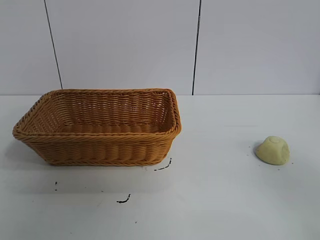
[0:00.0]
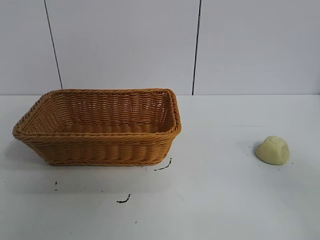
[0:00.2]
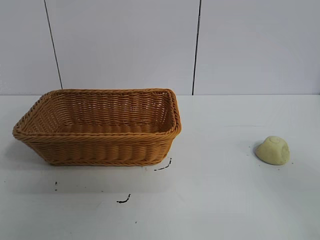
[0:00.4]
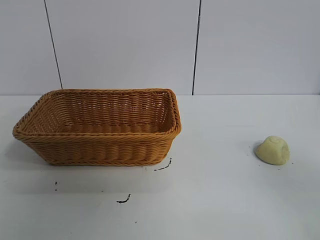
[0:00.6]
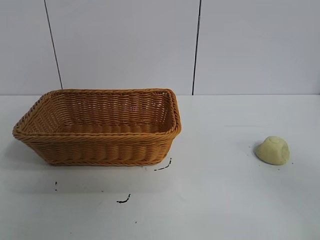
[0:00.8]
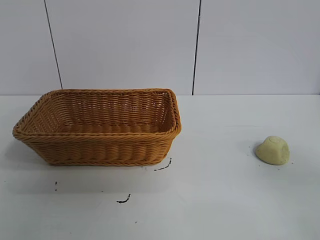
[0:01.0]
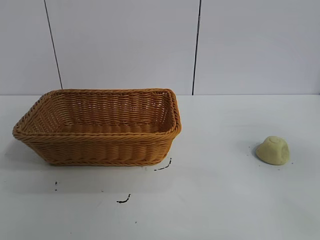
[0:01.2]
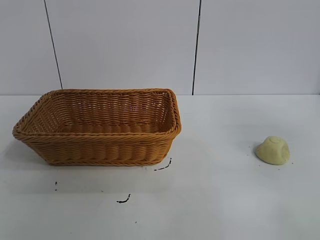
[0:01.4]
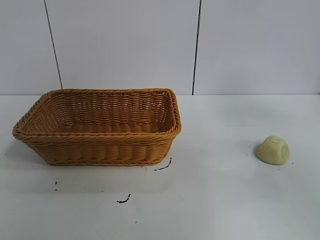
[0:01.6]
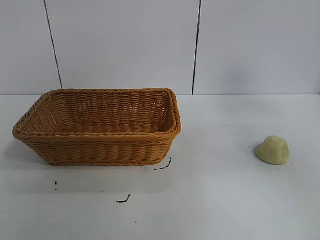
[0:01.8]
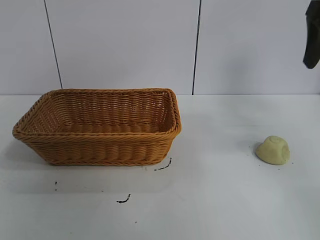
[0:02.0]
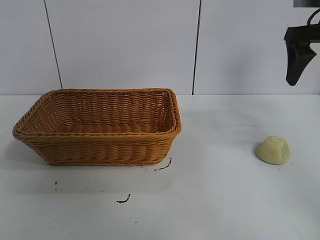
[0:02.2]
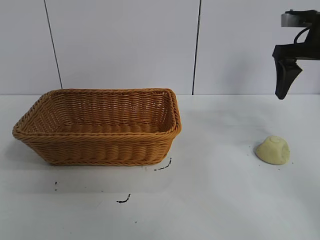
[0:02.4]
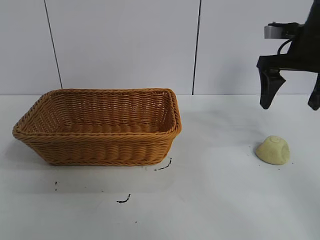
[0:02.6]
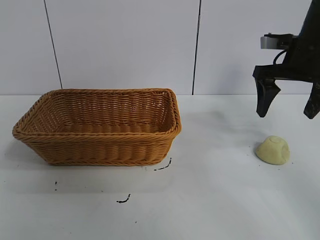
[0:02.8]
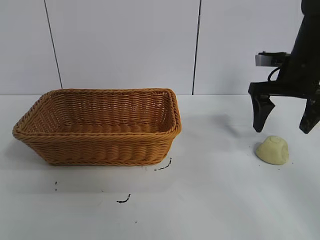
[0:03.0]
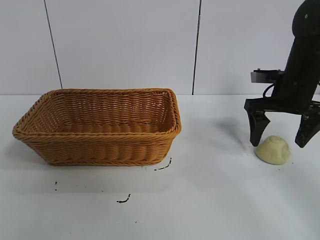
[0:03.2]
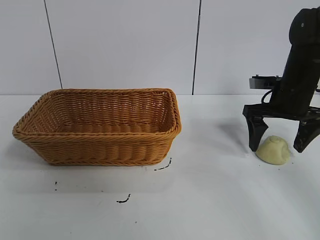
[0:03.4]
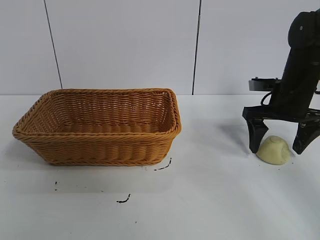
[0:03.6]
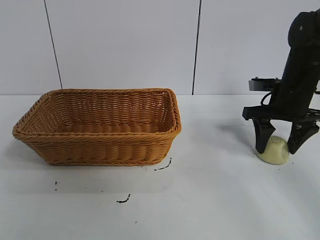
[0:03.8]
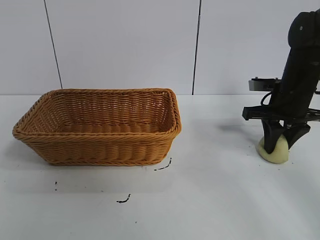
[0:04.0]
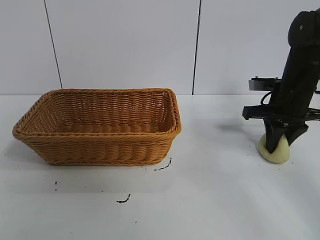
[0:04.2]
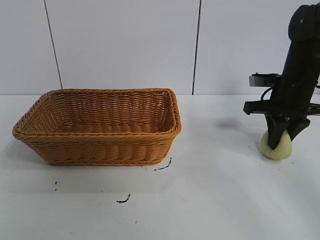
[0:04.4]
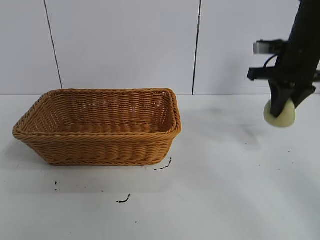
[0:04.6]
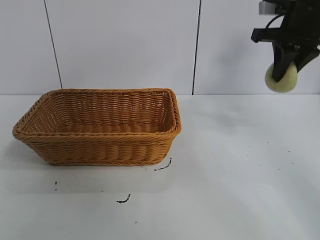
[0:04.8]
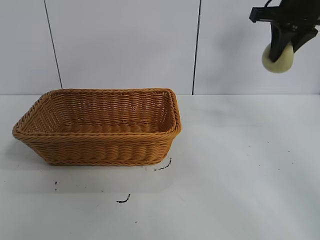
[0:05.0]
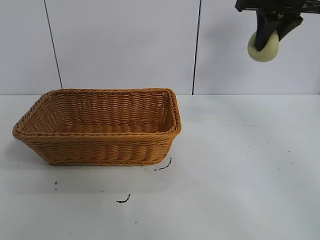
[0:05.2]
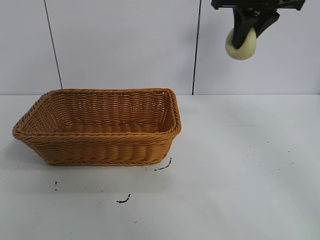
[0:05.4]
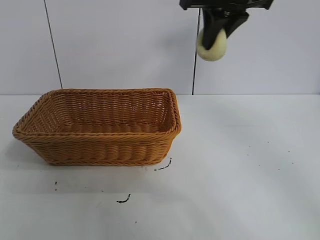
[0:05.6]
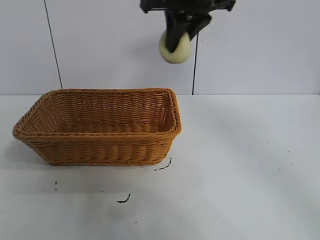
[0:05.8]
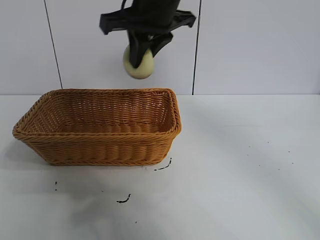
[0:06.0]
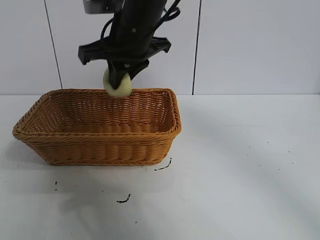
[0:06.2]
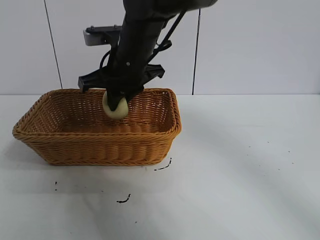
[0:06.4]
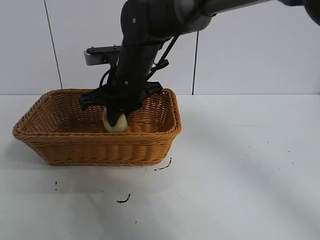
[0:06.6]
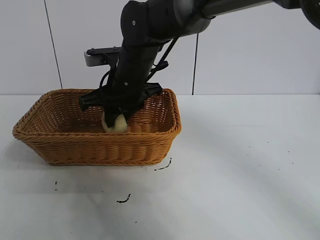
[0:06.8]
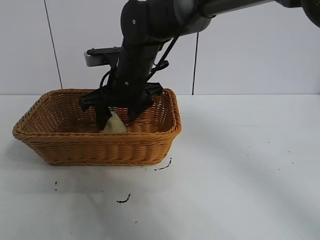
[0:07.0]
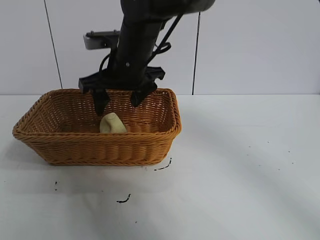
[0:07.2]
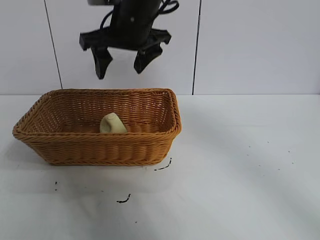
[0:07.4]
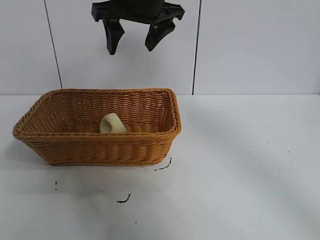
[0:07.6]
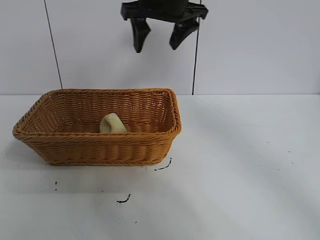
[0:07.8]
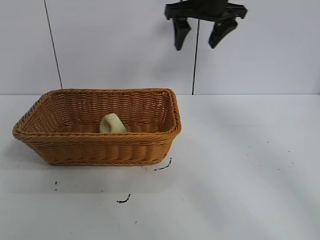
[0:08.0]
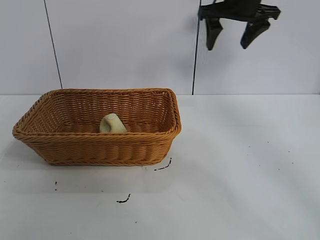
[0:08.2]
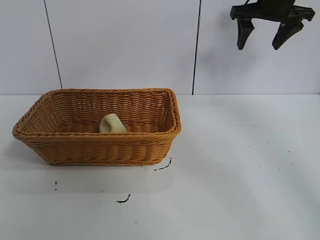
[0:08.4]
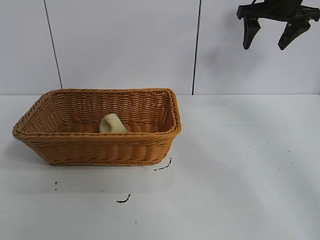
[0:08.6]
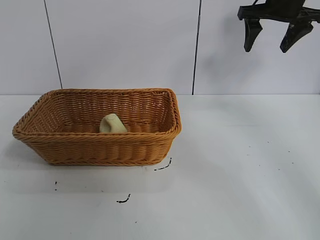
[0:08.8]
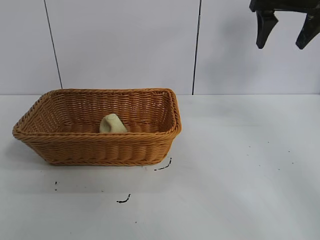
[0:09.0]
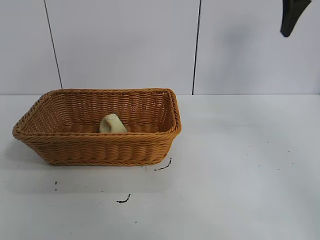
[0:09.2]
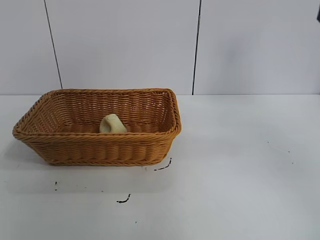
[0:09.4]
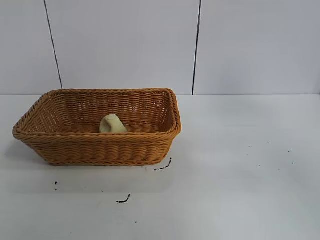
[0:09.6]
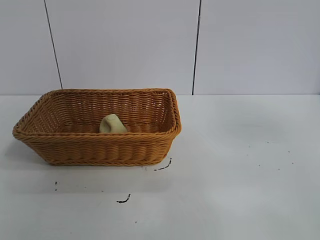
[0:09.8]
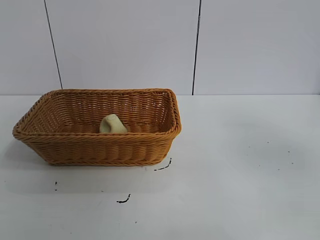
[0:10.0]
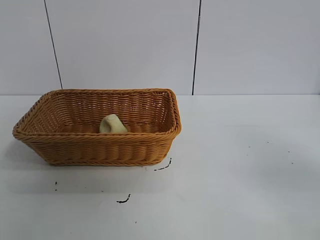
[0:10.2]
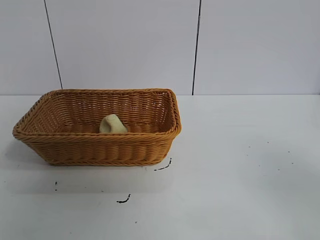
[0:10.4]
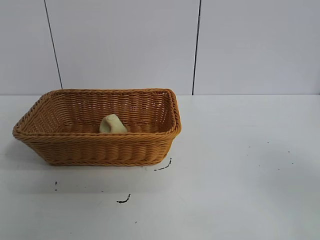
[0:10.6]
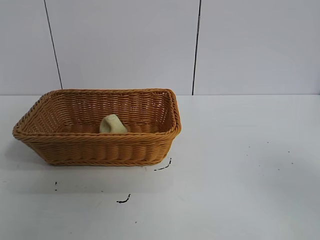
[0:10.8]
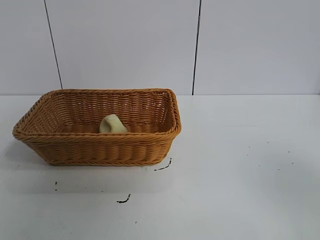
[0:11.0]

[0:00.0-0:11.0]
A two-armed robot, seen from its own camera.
Task of the whole recording: pick up the egg yolk pastry and put it into the basket.
Step, 0:00.8 to 0:04.0: Grasp egg yolk pastry with right gripper.
Step, 0:04.2 to 0:07.0: Place the egg yolk pastry in the basket with right gripper.
